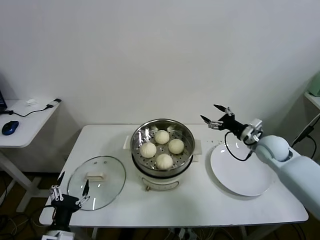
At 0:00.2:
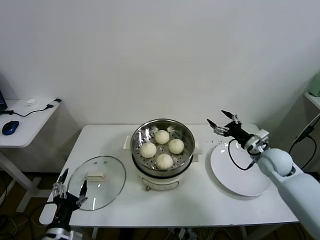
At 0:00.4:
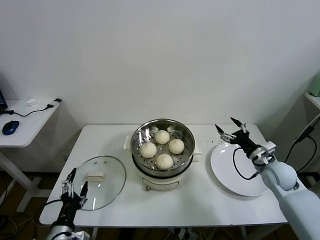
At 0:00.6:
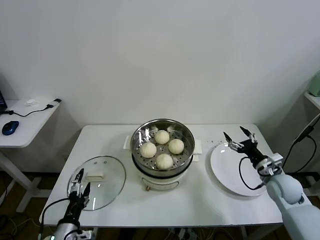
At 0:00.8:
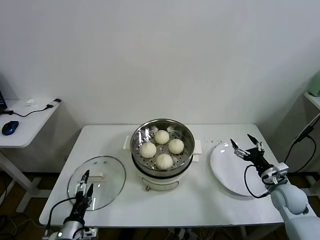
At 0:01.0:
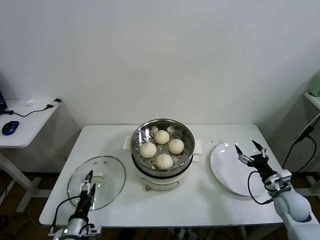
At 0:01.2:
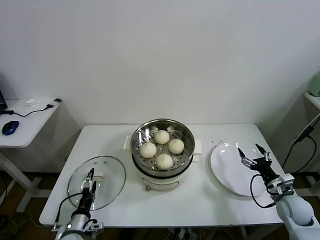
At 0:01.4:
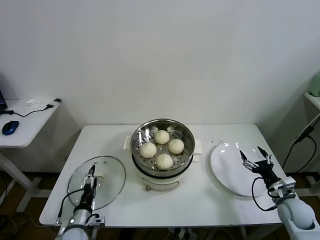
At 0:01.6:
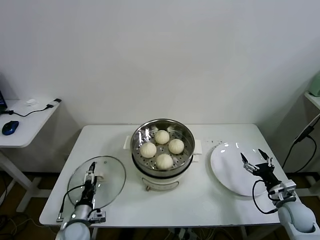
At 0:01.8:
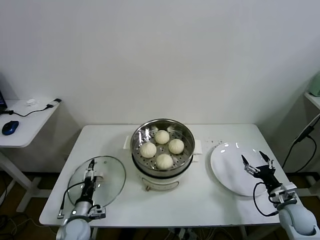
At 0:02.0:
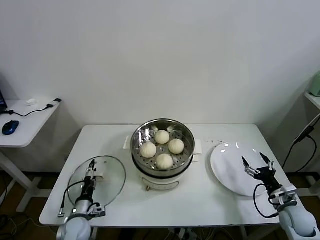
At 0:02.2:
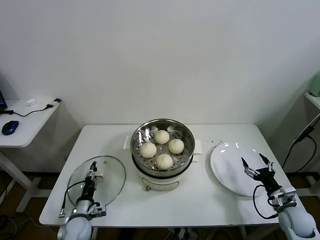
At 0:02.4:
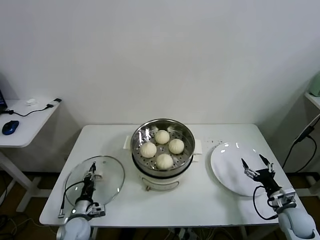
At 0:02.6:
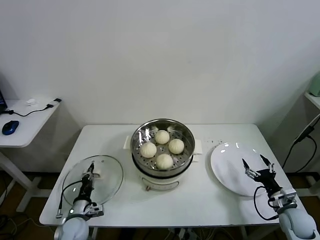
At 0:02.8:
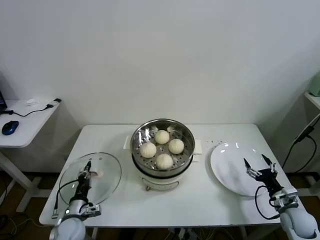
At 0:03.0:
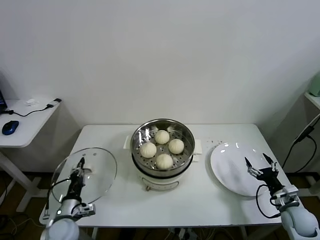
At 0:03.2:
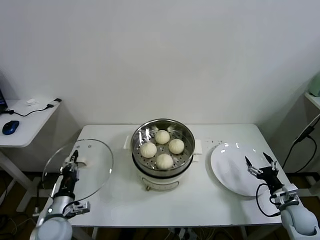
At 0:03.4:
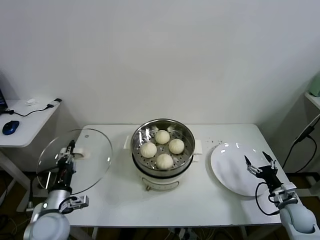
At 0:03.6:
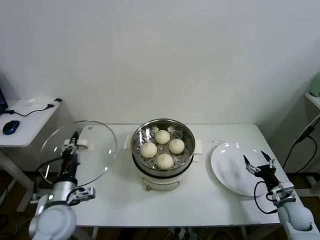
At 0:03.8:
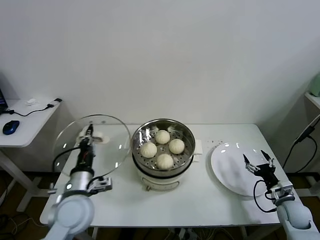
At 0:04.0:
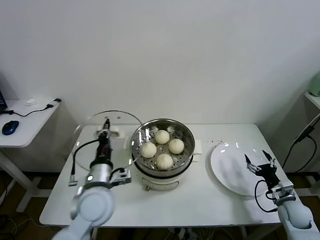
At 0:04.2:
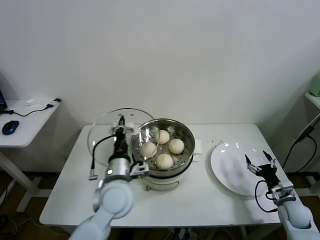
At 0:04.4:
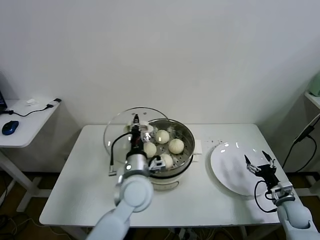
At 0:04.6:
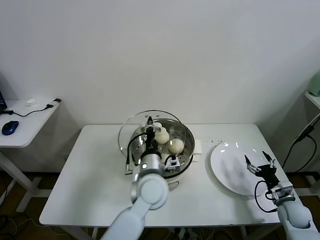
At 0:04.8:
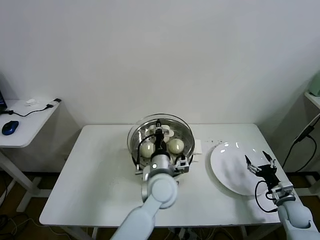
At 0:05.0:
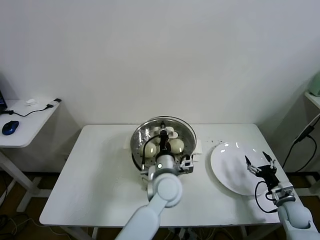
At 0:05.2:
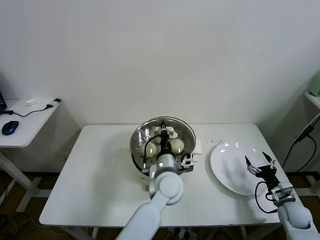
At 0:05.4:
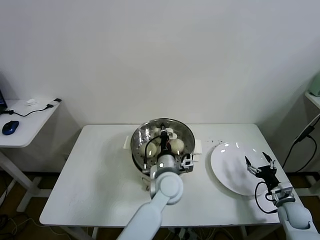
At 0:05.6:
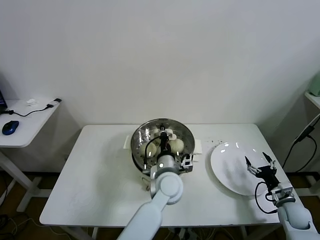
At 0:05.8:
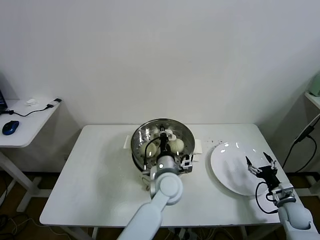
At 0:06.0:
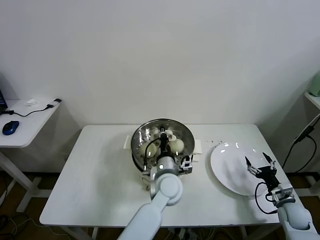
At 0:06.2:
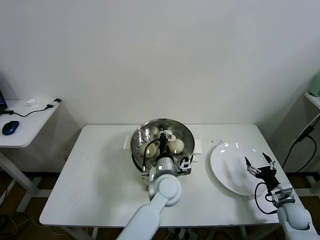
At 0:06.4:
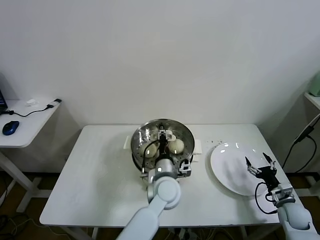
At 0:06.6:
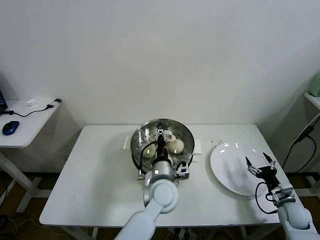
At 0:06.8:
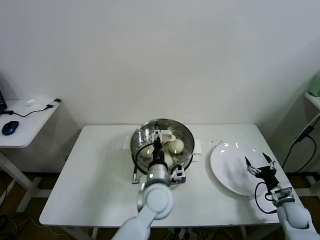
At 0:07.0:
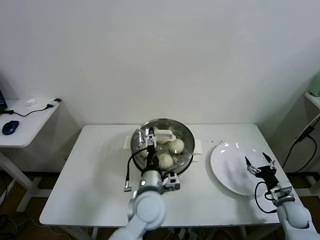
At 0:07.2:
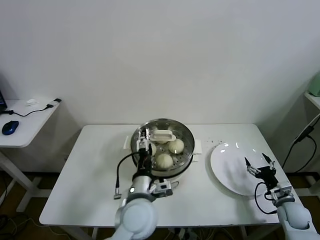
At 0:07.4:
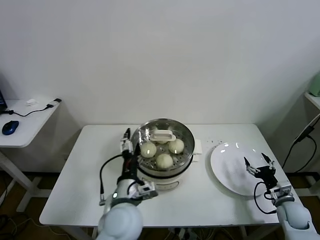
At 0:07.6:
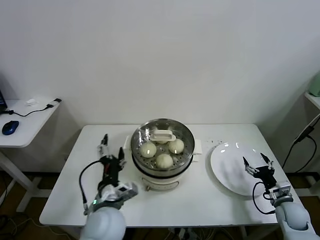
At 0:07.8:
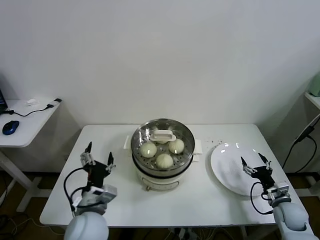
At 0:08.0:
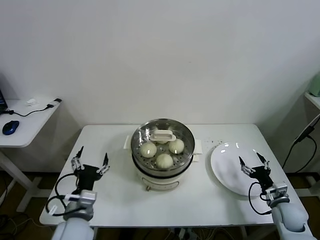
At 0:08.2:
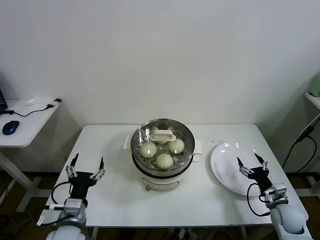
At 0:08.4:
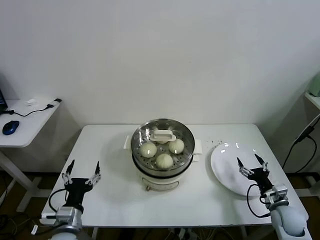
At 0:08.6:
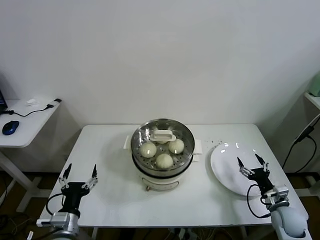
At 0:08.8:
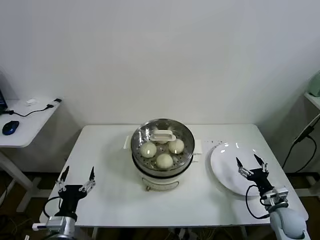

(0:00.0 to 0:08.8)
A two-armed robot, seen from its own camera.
Task of the whole recording: take steamed baozi put them in steamer.
Step, 0:00.0 - 0:02.4: Grasp the pot lid with left gripper.
Step, 0:02.8 - 0:06.6: Place the pot lid on the steamer with left gripper.
0:00.0 - 0:01.4: The left gripper moves downward and forward, roughly 15 cm; the right gripper shifts about 20 cm backward, downward and to the right.
0:01.4 - 0:03.0: The left gripper closes up.
0:03.0 - 0:04.4: The left gripper shifts approximately 30 cm to the right and upward.
0:04.4 - 0:05.8: The left gripper moves to the right and downward, some 10 cm.
0:05.8 - 0:07.4: The left gripper goes approximately 15 cm to the left and backward, and opens up.
0:07.4 - 0:08.8: The right gripper moves approximately 5 cm. The left gripper moves to the left and downward, some 20 cm.
